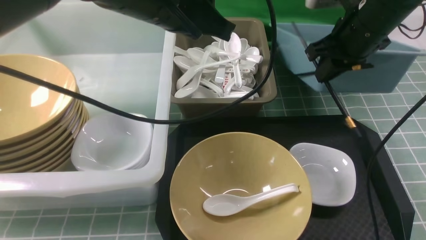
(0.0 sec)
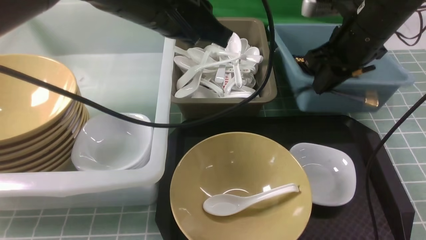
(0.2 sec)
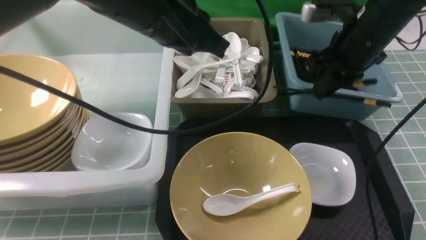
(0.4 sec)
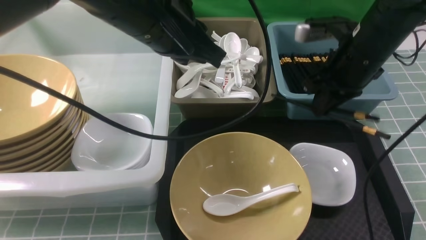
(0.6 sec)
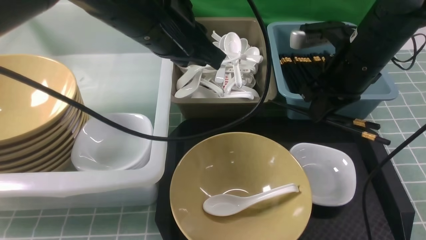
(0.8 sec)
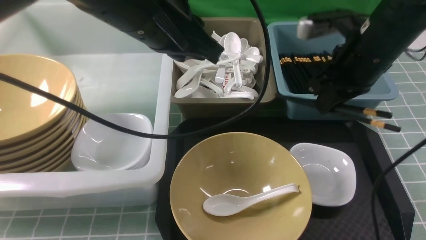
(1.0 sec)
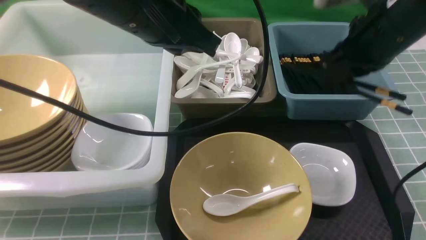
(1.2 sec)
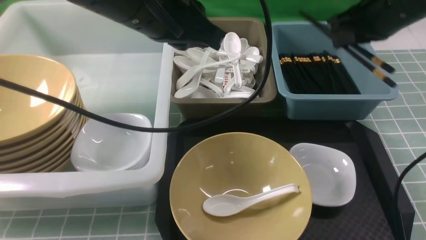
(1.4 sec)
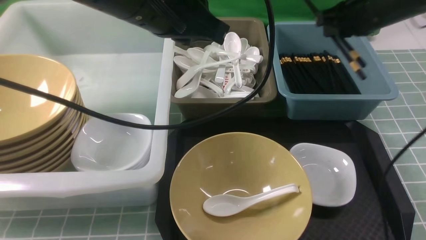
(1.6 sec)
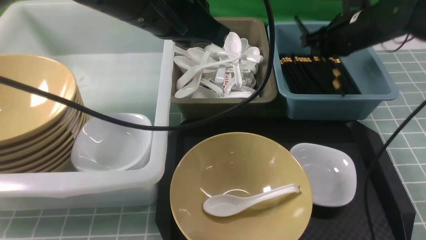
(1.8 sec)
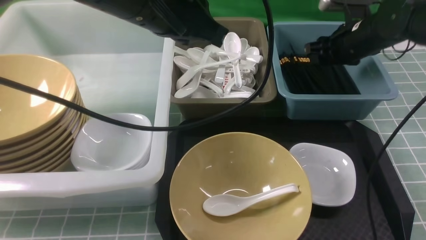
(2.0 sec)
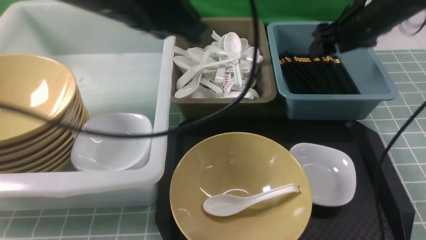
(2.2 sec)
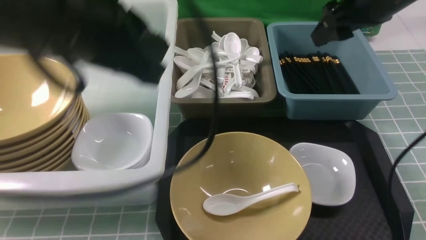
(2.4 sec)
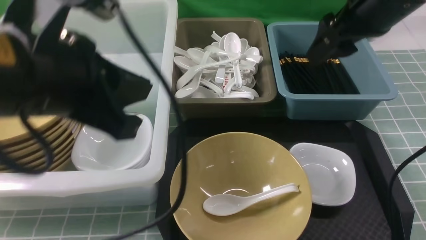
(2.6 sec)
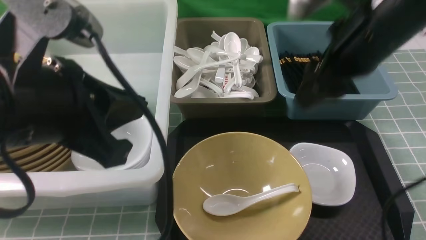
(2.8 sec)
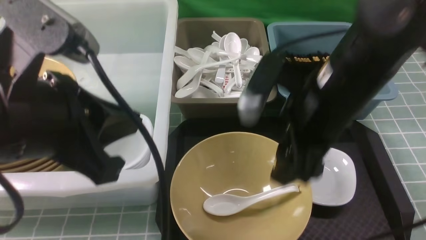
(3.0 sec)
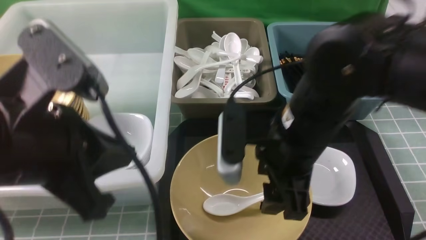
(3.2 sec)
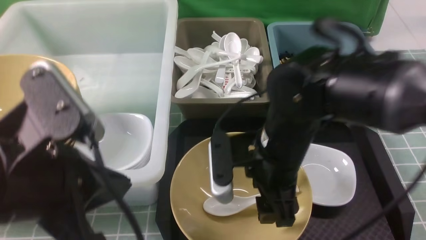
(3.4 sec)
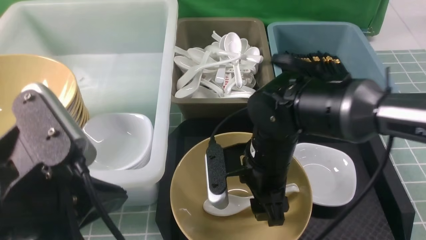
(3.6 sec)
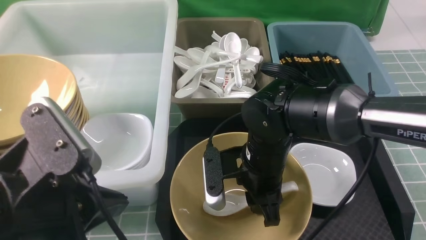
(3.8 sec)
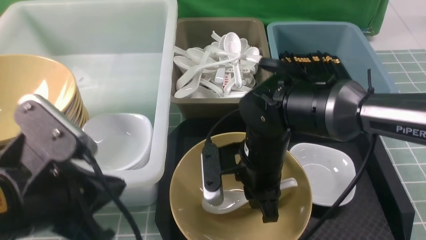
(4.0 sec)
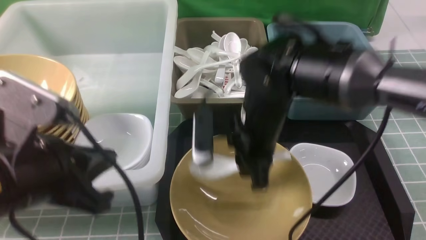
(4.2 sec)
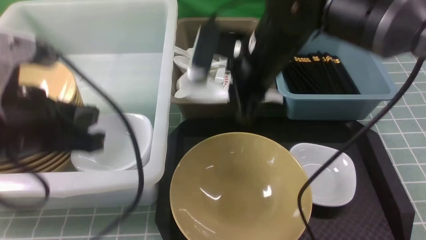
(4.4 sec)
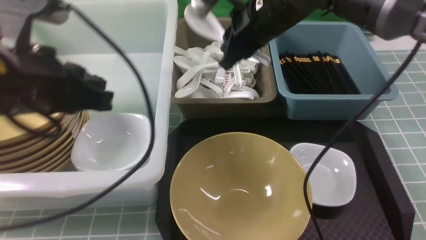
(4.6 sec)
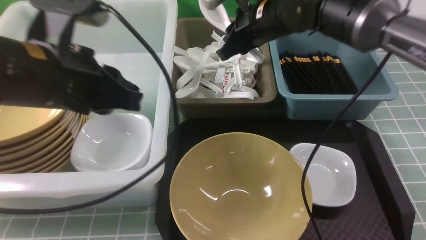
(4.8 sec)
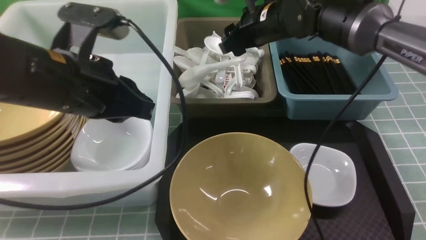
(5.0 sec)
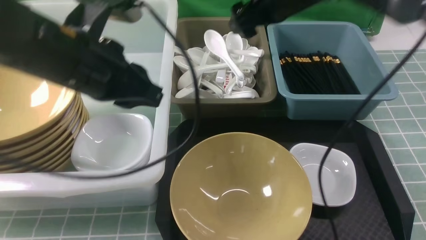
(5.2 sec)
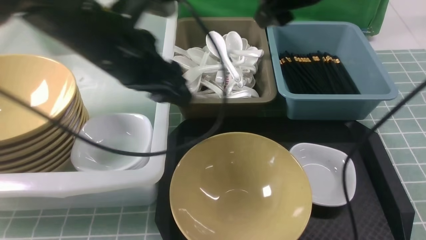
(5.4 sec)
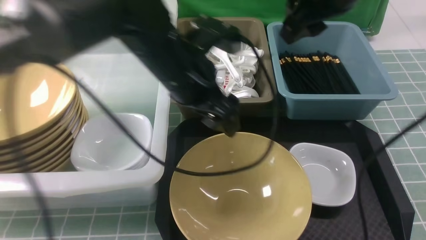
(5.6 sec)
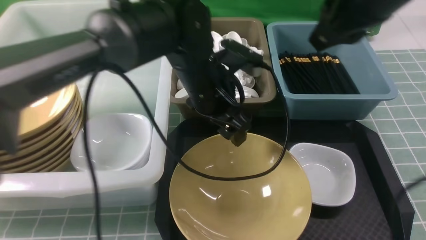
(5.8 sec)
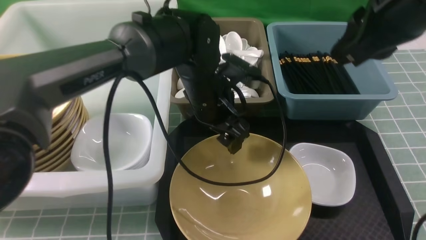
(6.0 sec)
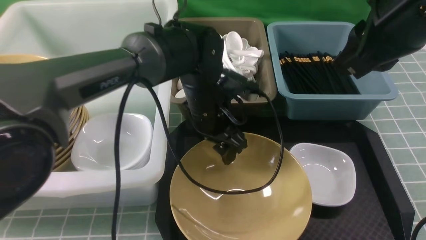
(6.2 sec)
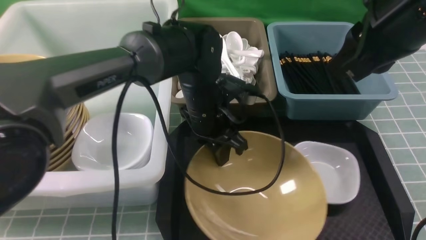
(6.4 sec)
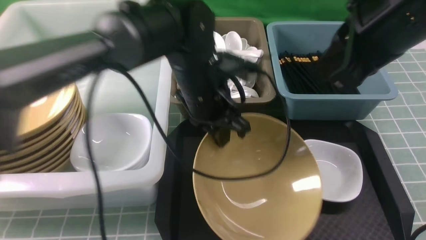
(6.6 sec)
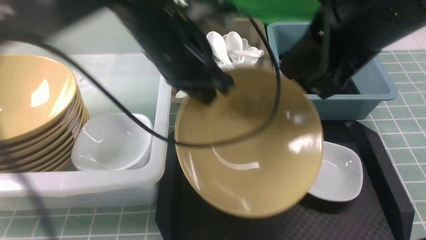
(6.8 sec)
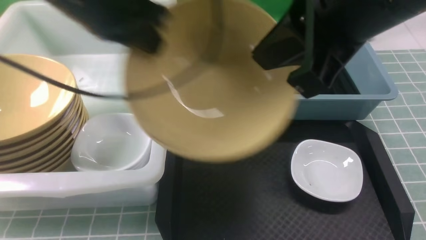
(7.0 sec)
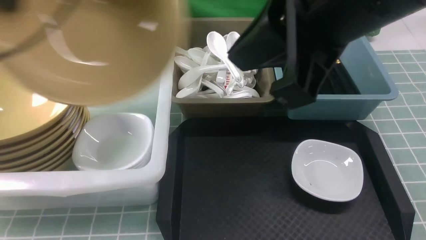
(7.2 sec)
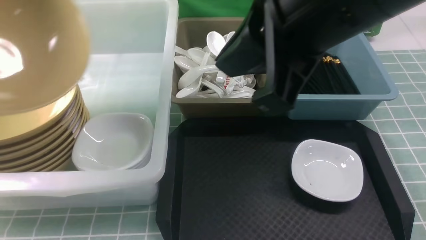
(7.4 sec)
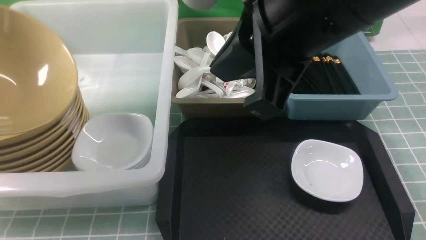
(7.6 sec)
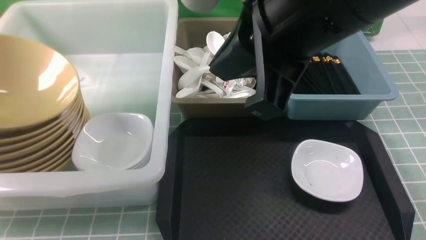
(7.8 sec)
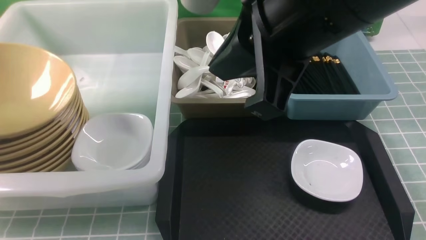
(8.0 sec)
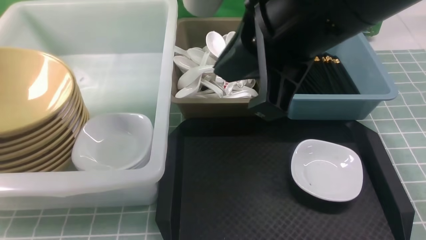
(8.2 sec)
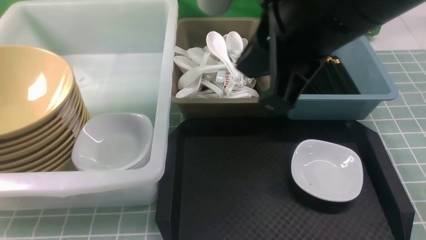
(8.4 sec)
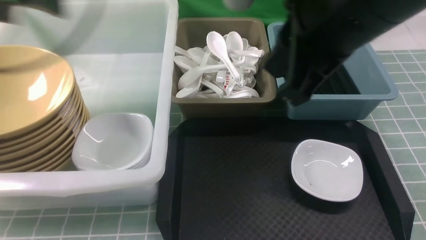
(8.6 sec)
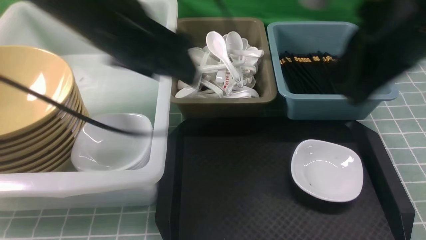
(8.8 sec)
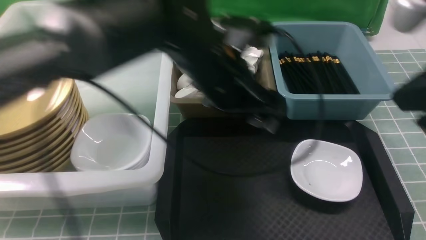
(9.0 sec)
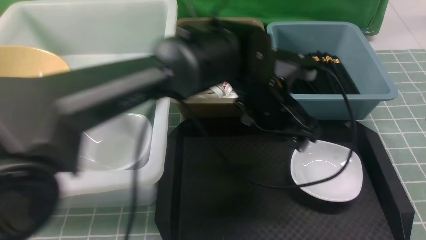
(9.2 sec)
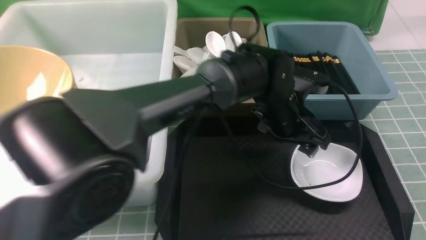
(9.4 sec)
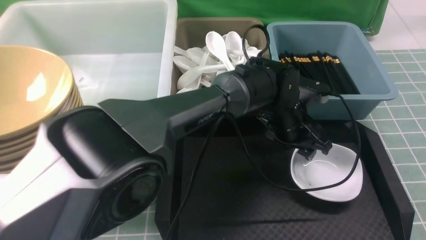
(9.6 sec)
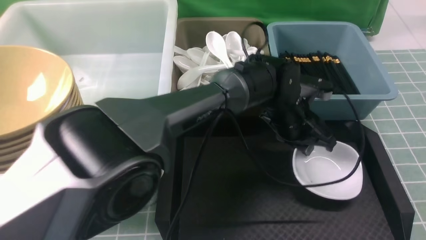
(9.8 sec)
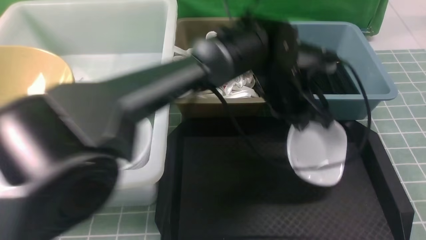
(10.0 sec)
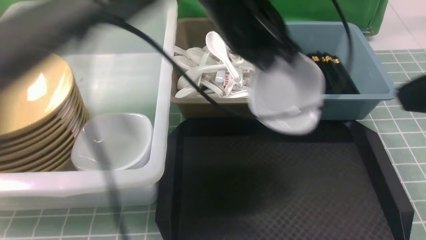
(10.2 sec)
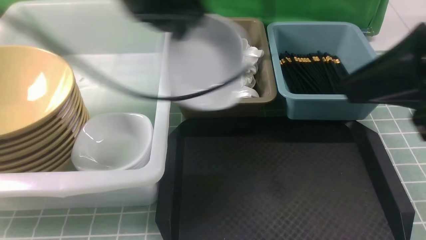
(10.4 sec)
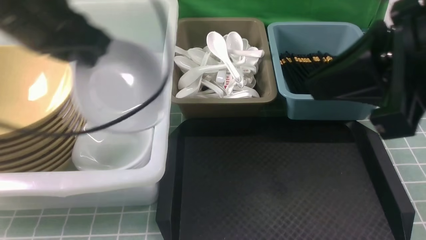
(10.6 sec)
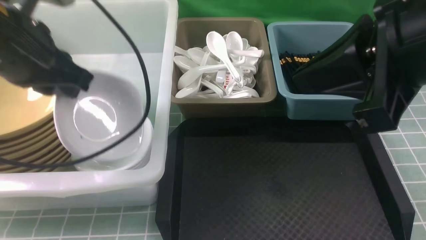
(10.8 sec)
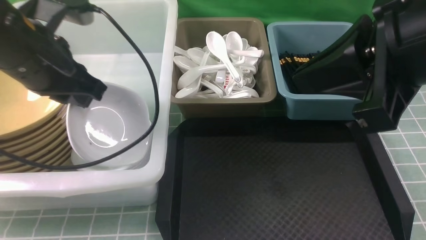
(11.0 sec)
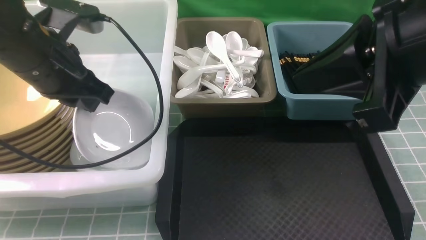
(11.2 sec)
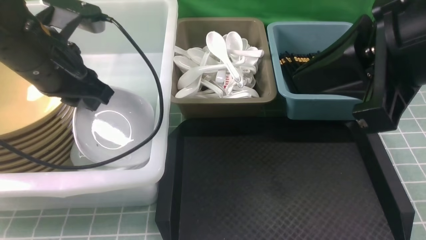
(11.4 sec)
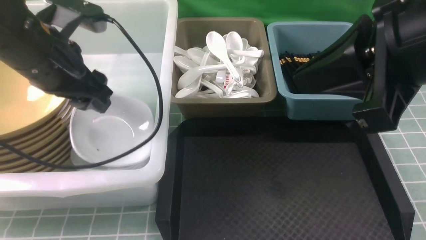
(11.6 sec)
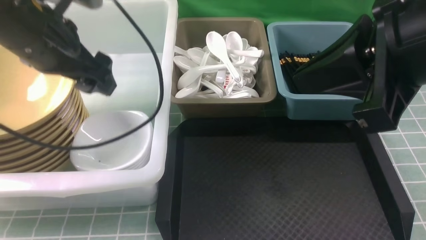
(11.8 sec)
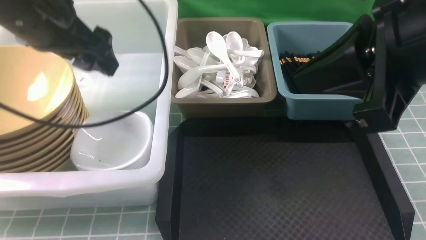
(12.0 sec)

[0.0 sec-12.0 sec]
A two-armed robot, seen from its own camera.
Task of the whole recording: on blue table put chopsticks spoon bowls plates into blue grey white boxes.
Step, 0.0 sec to 2.0 sec: use the right arm to put the chopsticks into the small storage box on the right.
Step, 2.4 sec to 4.0 sec: use the right arm to grab the soup spoon in the middle.
Step, 4.4 sec to 5.0 sec: use the right arm to put the soup spoon into the small storage box in the middle.
Step, 5.4 sec to 6.6 sec: use the left arm to grab the yellow noodle bowl on the left.
Step, 6.8 sec to 8.0 sec: use the left arm to put the noodle bowl into the large storage box on the left.
Step, 8.2 sec to 10.0 sec: use the left arm to grab the plate.
Step, 10.2 sec to 11.8 sec: use the left arm to put the plate into the large storage box on the left.
1.6 sec to 3.0 sec: Both grippers move backward and to the left, about 20 cm. The right gripper opens up.
3.0 sec to 4.4 sec: The right gripper goes roughly 10 cm forward and to the left, goes downward and returns, roughly 10 cm each way, and closes its fingers.
4.4 sec to 6.0 sec: The left gripper goes roughly 25 cm to the right, forward and downward, and opens. Meanwhile the right gripper is displaced to the right, upward and backward by some 20 cm, and opens, then closes once more.
6.0 sec to 7.6 sec: The left gripper heads to the left and upward, covering about 40 cm, and closes. The right gripper moves to the left and backward, roughly 10 cm.
7.6 sec to 9.0 sec: The right gripper shifts some 15 cm to the right. The left gripper heads to the right, covering roughly 40 cm, and opens up.
9.0 sec to 10.4 sec: The left gripper shifts about 20 cm to the left and upward, and closes.
10.4 sec to 12.0 sec: The left gripper is displaced to the left by roughly 10 cm, and opens.

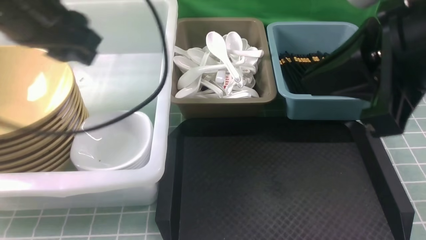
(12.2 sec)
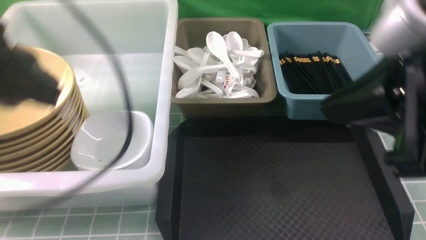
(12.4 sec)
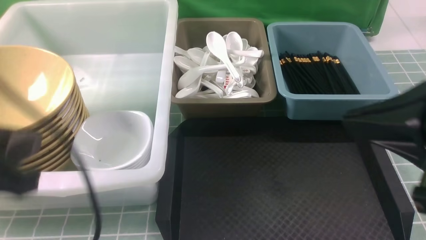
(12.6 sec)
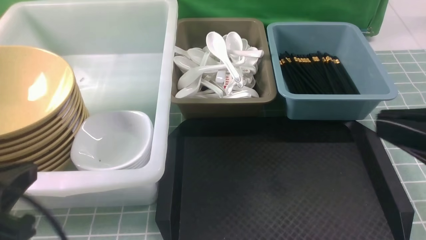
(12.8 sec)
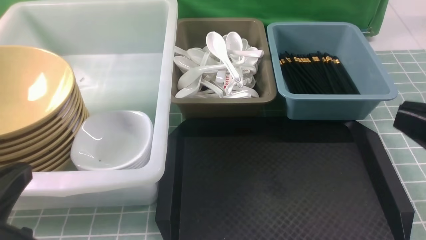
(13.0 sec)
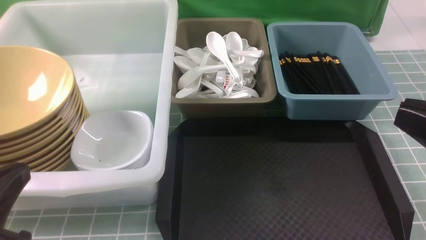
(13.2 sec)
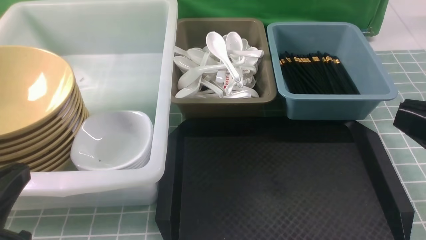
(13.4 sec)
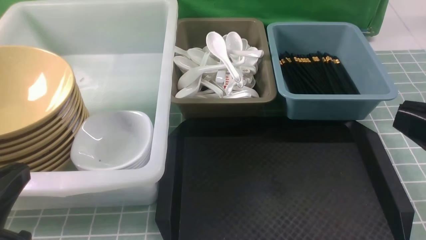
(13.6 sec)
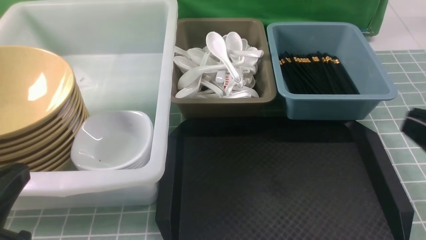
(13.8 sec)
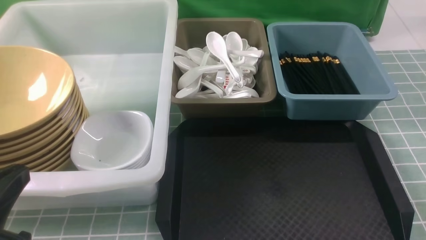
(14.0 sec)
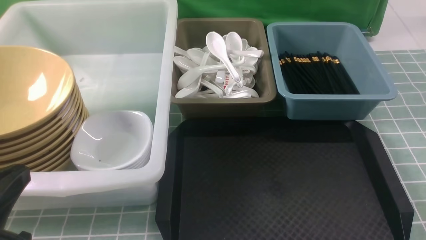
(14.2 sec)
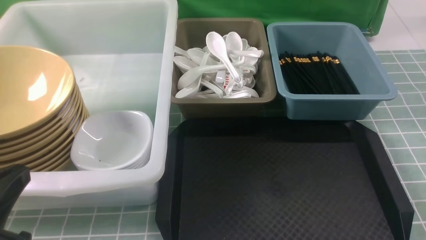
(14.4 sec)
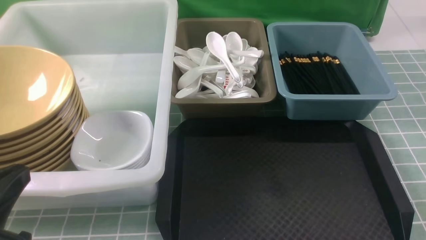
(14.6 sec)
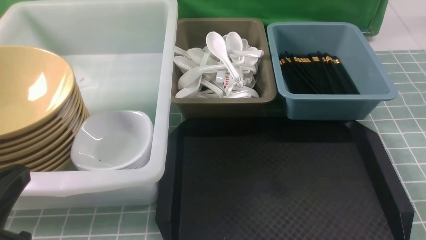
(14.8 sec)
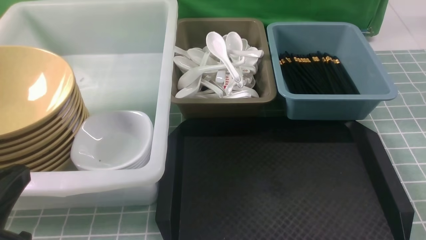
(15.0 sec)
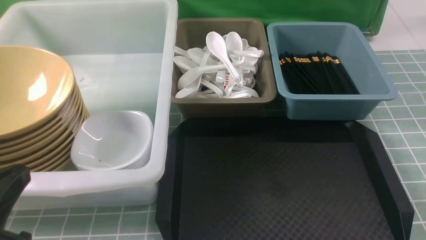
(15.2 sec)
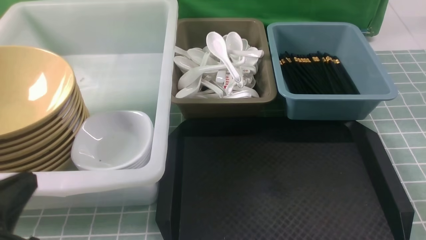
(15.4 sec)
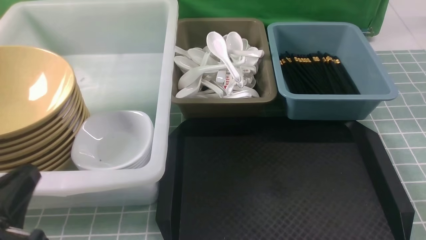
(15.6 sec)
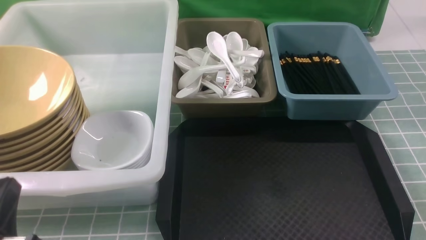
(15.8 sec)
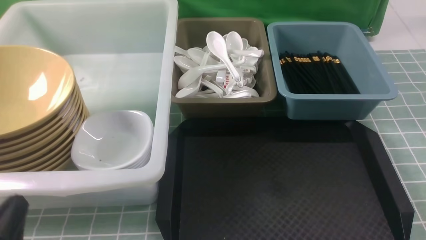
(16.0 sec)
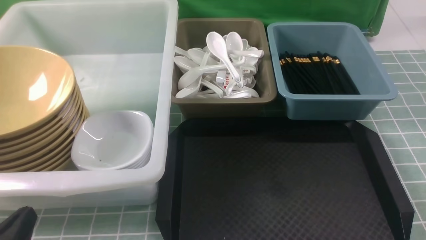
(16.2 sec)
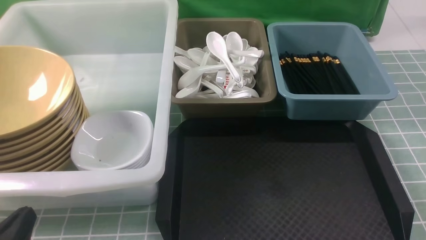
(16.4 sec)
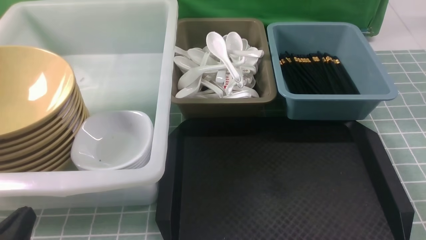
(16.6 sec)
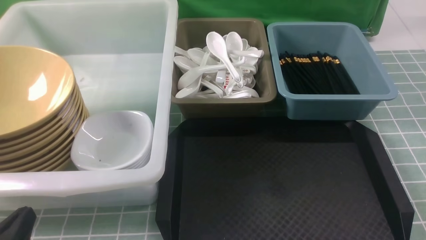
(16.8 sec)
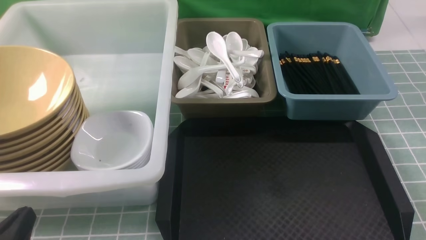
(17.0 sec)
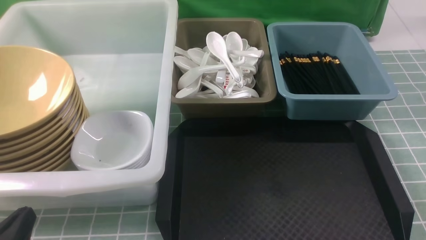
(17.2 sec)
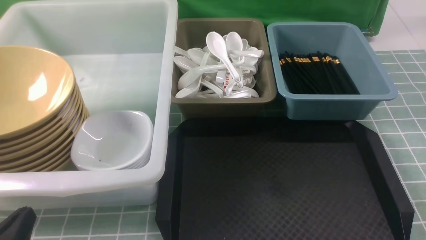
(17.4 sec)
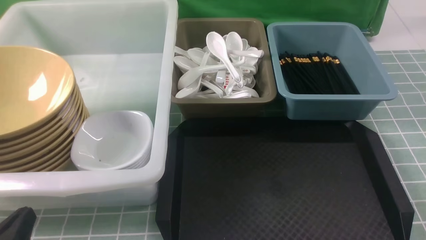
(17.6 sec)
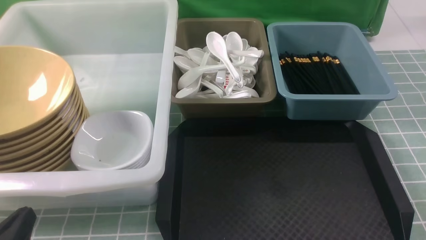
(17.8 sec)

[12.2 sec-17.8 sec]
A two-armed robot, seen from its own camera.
Task of the whole recording: on blue table put chopsticks spoon bowls plates into blue grey white boxes.
12.2 sec to 13.6 sec: The left gripper goes roughly 20 cm backward and downward, and closes up. The right gripper travels downward, backward and to the right by roughly 15 cm.
13.6 sec to 15.0 sec: The right gripper is displaced downward and to the right by some 20 cm.
15.0 sec to 16.4 sec: The left gripper goes roughly 10 cm downward.
16.4 sec to 17.8 sec: The two grippers keep their place.
